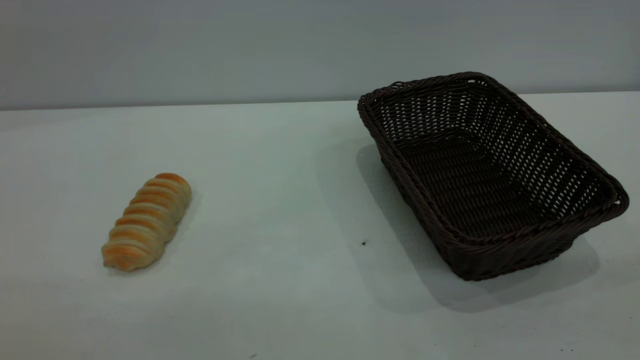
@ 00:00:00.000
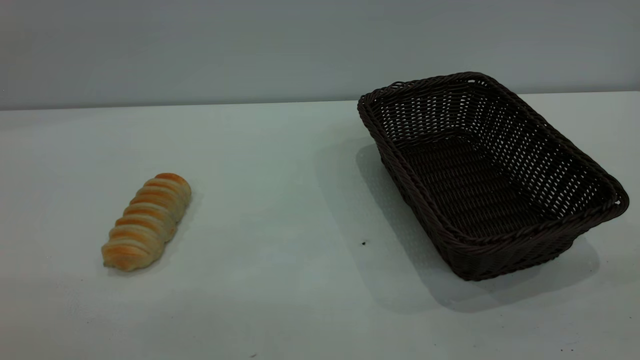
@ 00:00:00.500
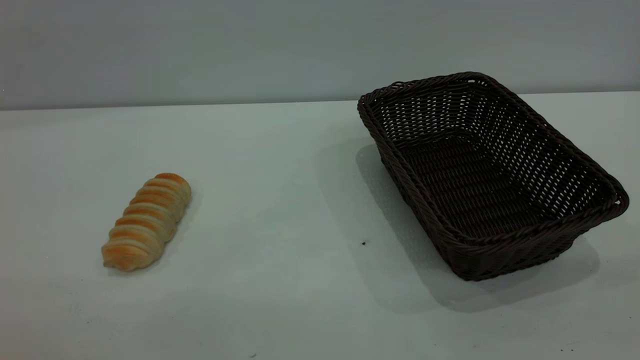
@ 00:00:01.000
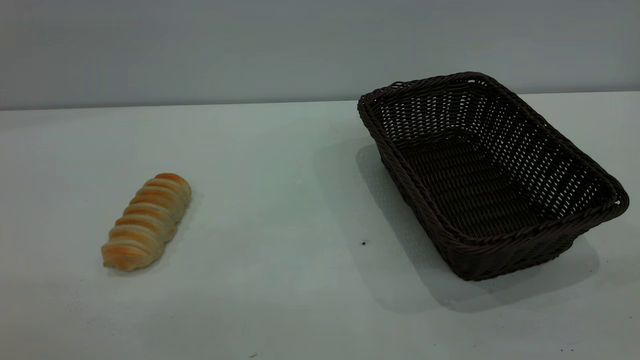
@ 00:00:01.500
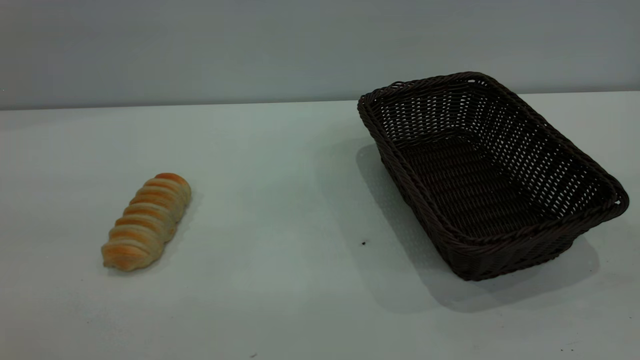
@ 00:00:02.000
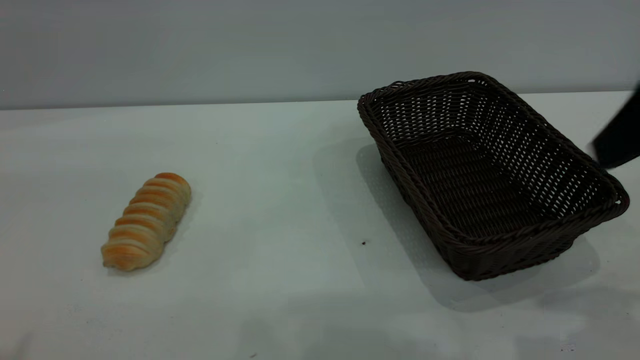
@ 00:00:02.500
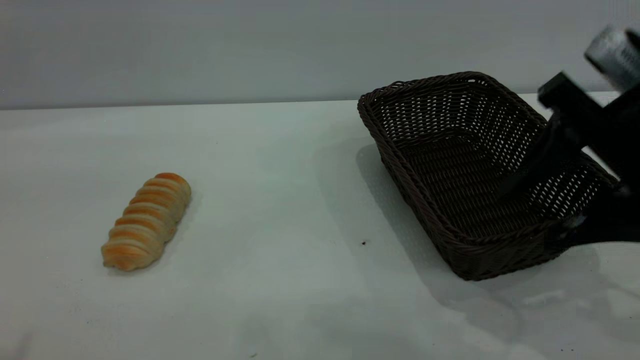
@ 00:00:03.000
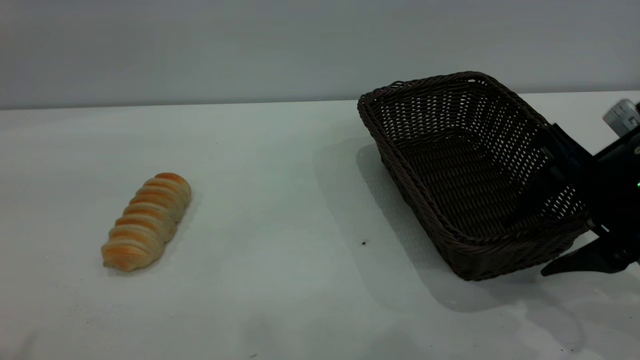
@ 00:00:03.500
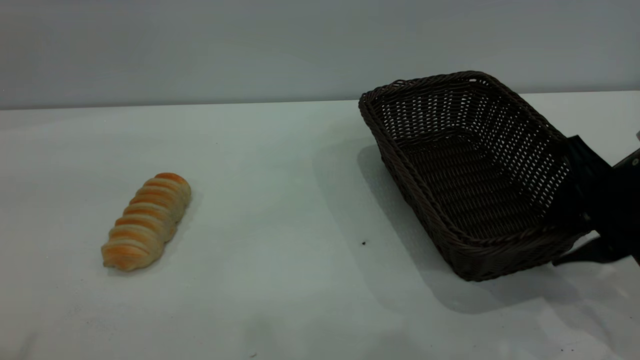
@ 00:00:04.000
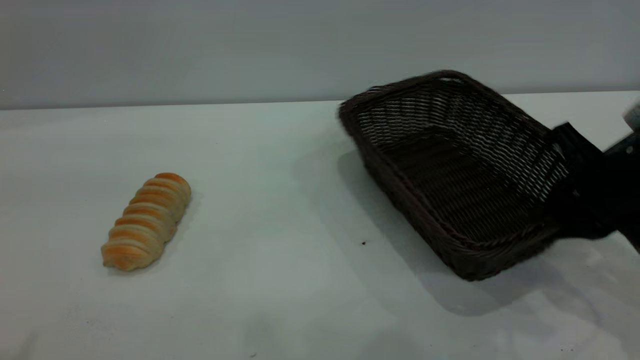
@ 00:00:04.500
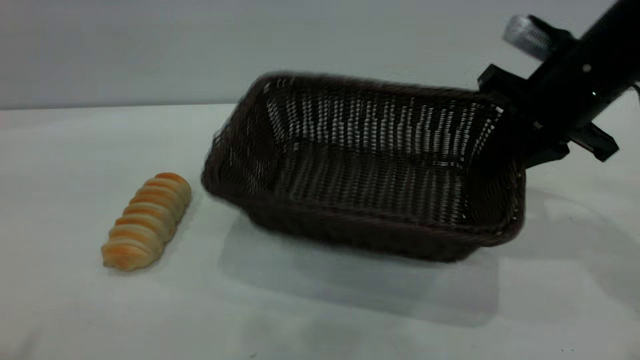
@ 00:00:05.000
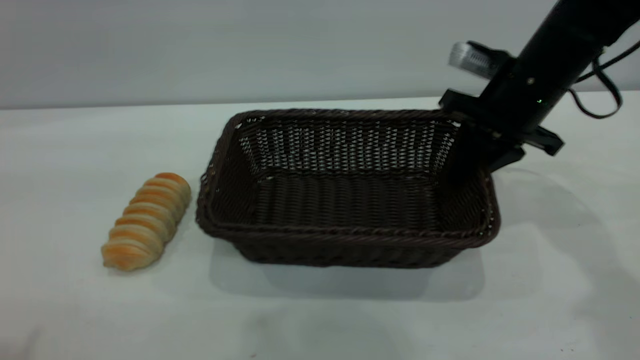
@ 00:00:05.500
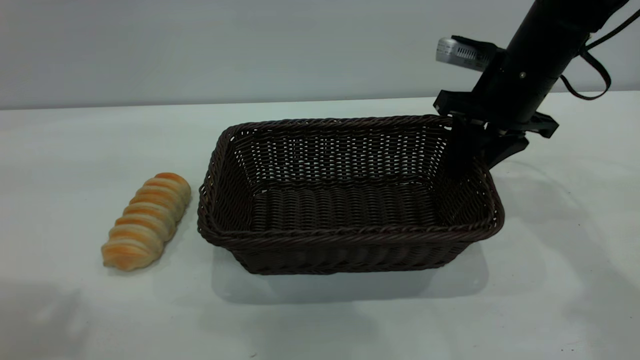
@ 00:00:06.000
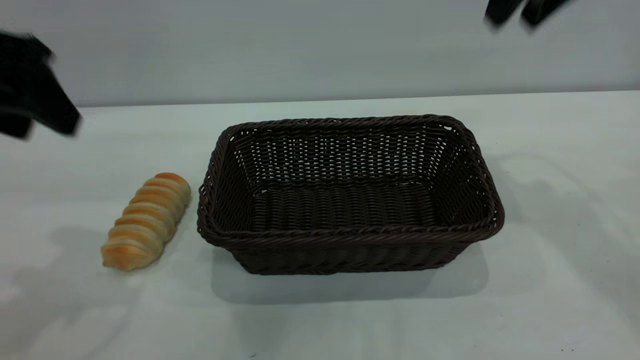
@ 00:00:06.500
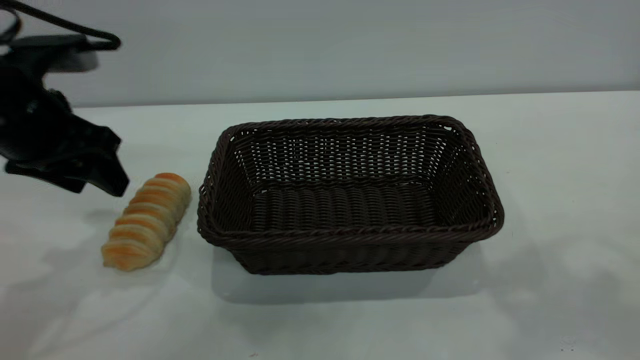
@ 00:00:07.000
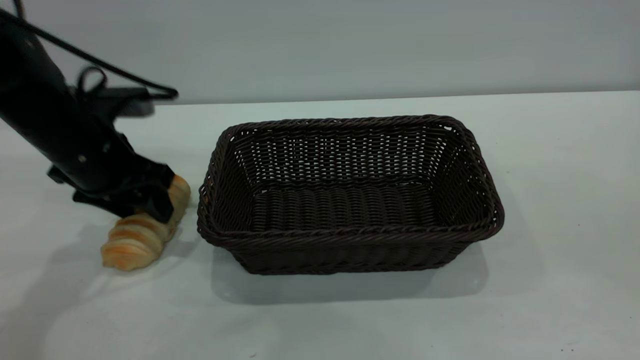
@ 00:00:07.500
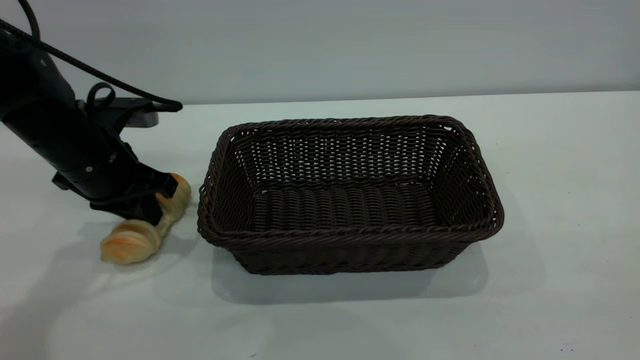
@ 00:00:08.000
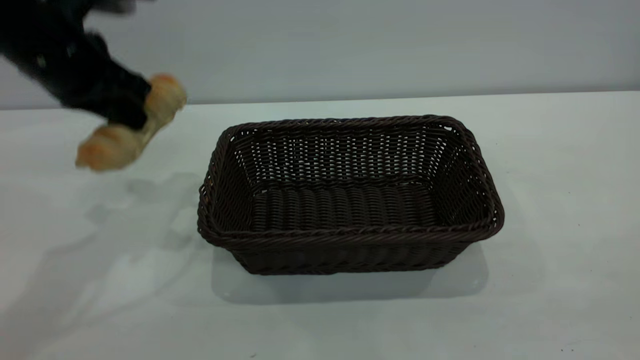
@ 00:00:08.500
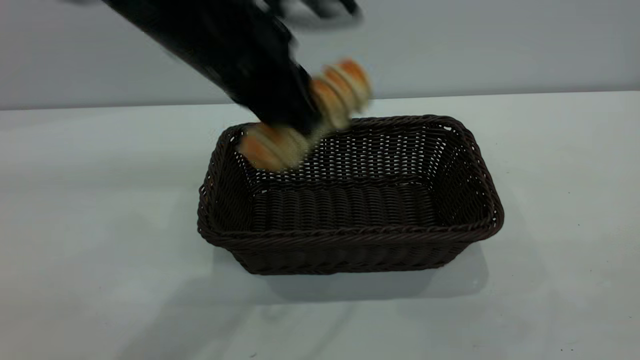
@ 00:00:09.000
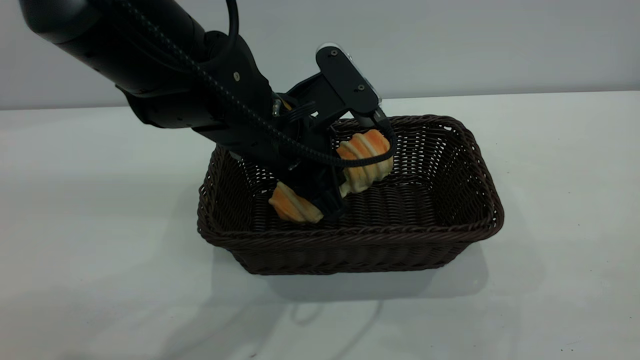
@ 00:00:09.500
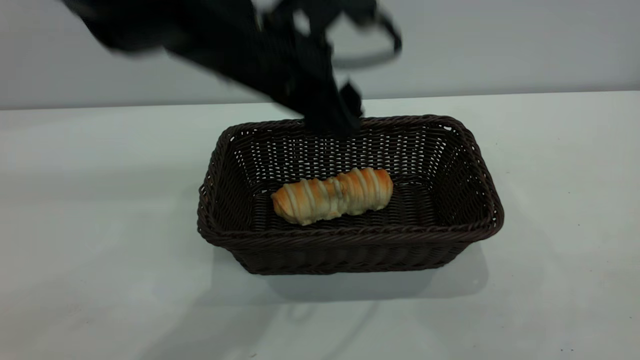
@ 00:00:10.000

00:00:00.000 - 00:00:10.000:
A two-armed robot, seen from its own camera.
Task of the whole recording: One hand grasps the black basket and places it in the middle of the table, while the other hand picks up the long bread and puts it into the black basket.
Step, 00:00:00.000 - 00:00:06.000: Move the basket to the center of view.
Step, 00:00:09.000 - 00:00:10.000: place the bread into the basket.
00:00:02.000 - 00:00:04.000: The right gripper moves downward and forward, some 30 cm, and closes its fingers.
00:00:04.000 - 00:00:06.000: The left gripper goes some 5 cm forward, while the right gripper is displaced forward and to the left by approximately 15 cm, and closes, then reopens.
00:00:06.000 - 00:00:08.000: The left gripper travels downward and forward by roughly 30 cm, and closes, while the right gripper is displaced backward and upward by approximately 50 cm.
00:00:08.000 - 00:00:10.000: The left gripper heads to the right and upward, covering about 25 cm, and opens up.
